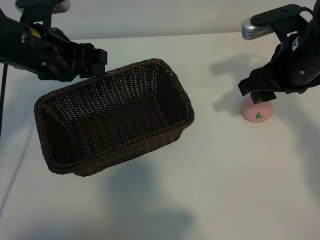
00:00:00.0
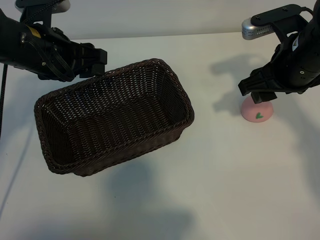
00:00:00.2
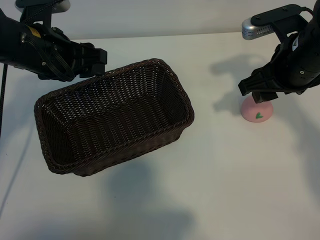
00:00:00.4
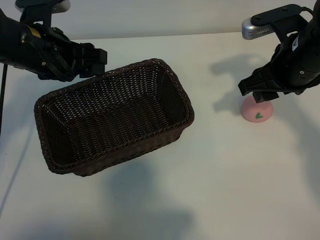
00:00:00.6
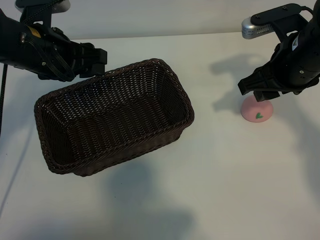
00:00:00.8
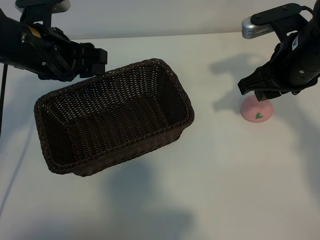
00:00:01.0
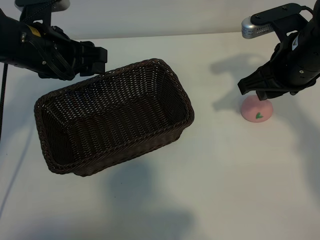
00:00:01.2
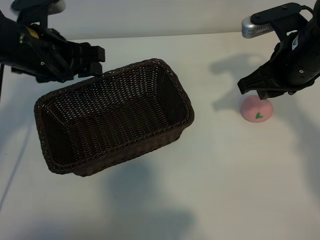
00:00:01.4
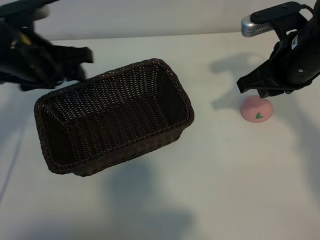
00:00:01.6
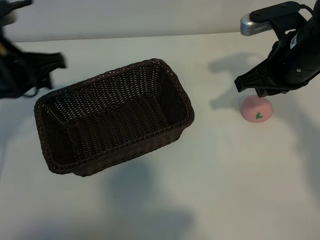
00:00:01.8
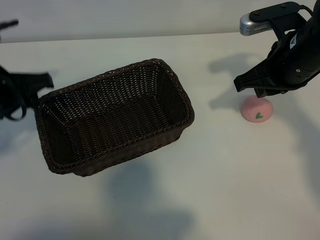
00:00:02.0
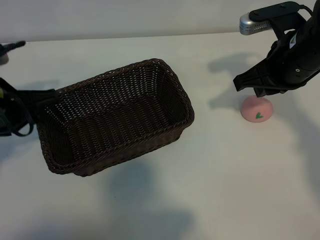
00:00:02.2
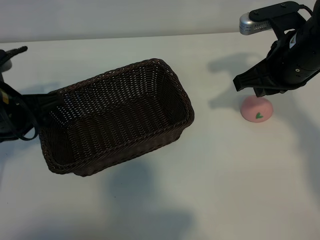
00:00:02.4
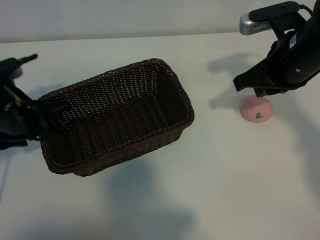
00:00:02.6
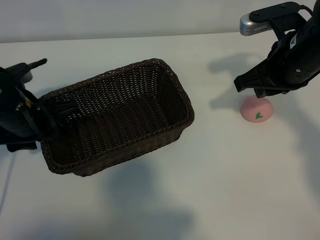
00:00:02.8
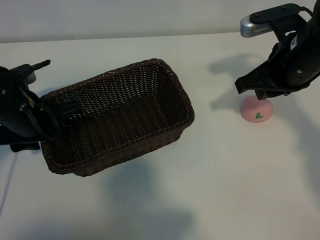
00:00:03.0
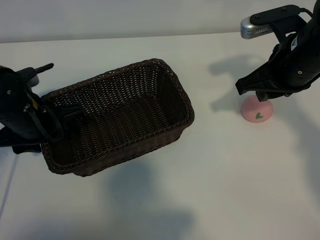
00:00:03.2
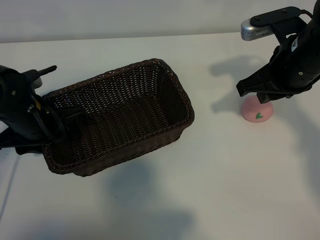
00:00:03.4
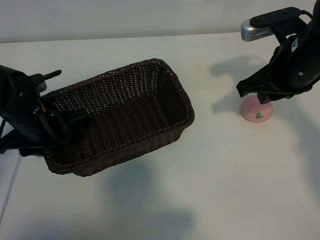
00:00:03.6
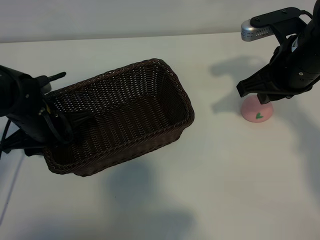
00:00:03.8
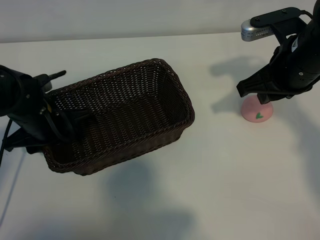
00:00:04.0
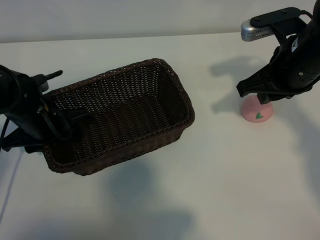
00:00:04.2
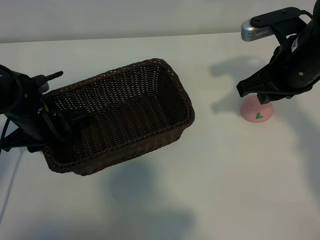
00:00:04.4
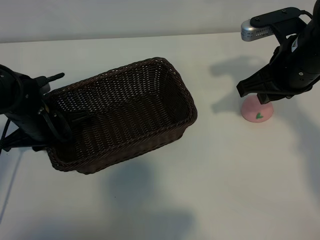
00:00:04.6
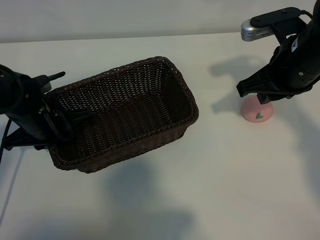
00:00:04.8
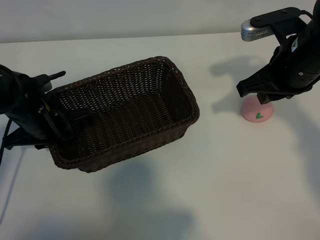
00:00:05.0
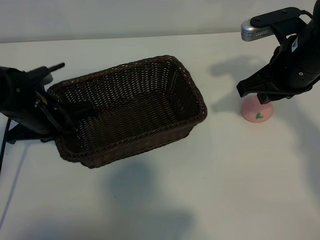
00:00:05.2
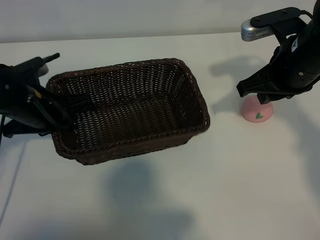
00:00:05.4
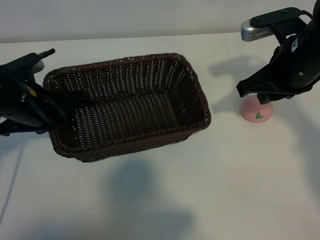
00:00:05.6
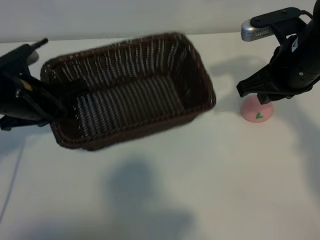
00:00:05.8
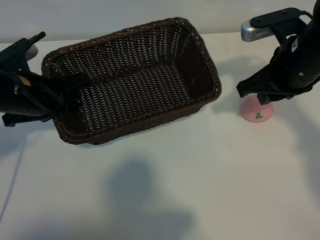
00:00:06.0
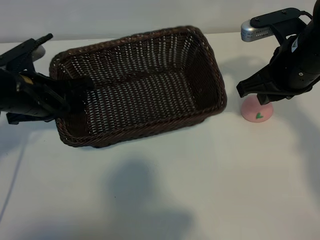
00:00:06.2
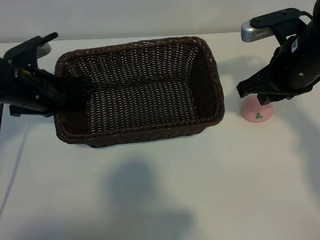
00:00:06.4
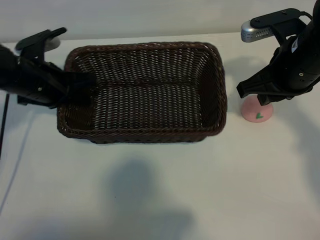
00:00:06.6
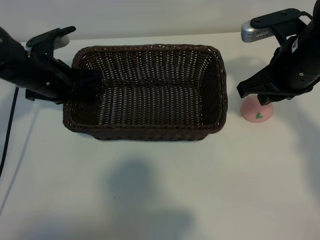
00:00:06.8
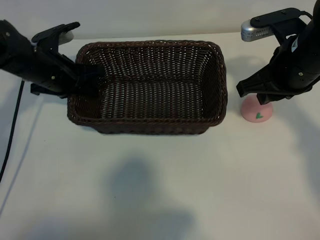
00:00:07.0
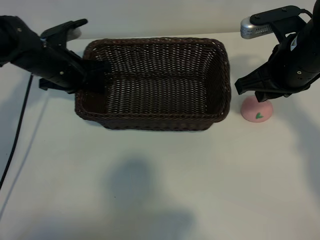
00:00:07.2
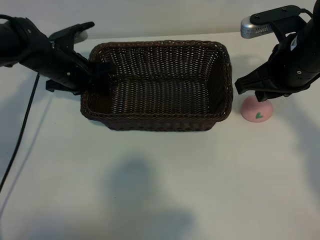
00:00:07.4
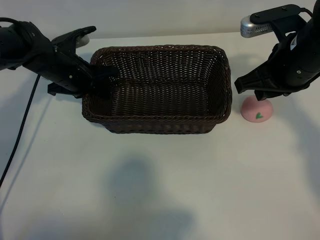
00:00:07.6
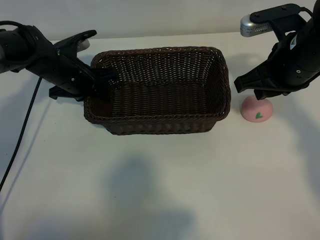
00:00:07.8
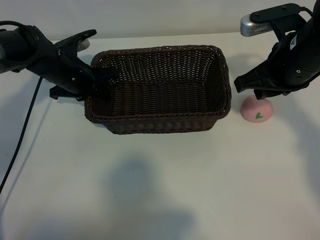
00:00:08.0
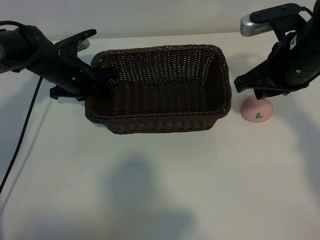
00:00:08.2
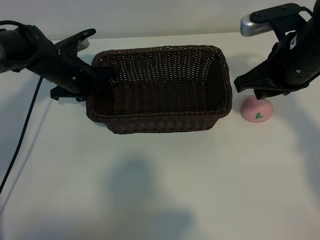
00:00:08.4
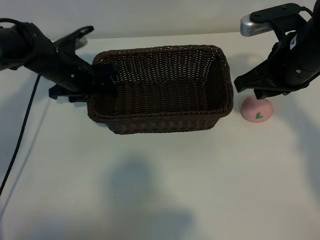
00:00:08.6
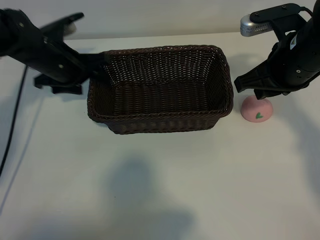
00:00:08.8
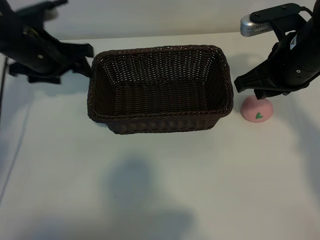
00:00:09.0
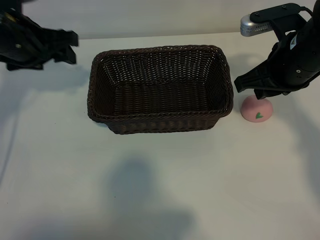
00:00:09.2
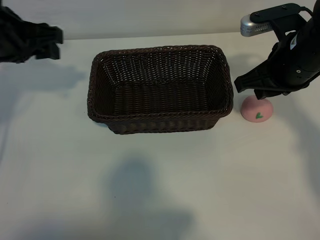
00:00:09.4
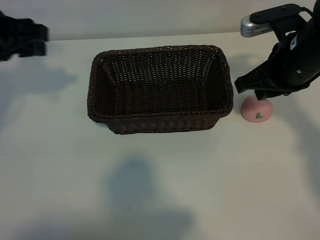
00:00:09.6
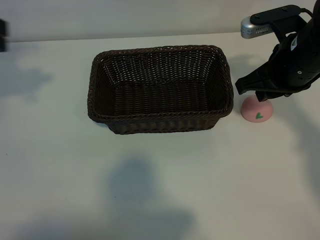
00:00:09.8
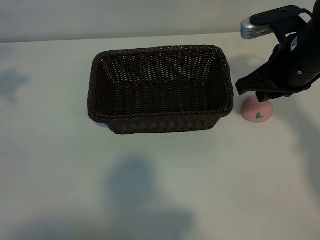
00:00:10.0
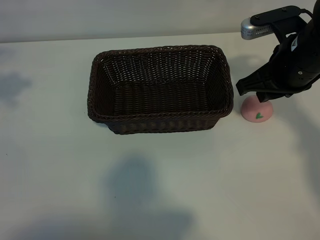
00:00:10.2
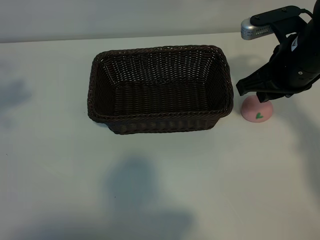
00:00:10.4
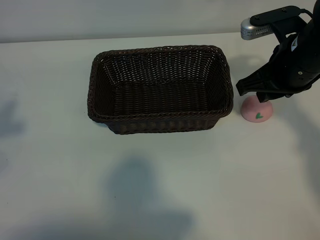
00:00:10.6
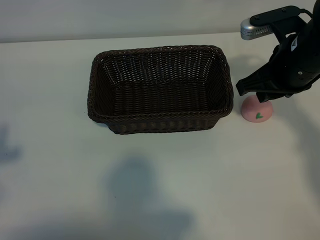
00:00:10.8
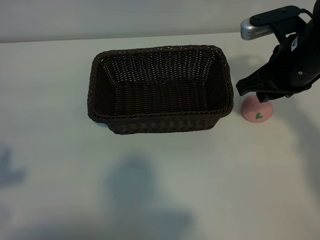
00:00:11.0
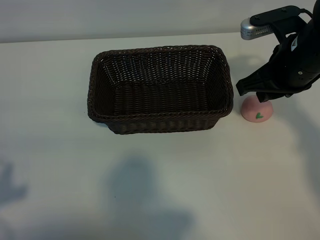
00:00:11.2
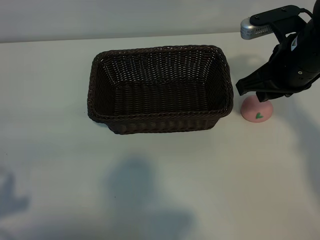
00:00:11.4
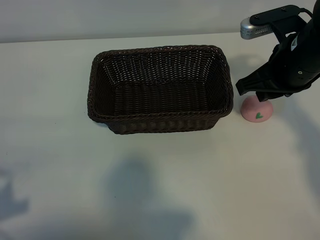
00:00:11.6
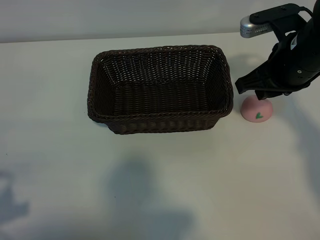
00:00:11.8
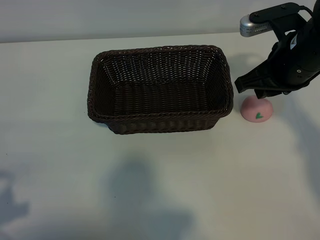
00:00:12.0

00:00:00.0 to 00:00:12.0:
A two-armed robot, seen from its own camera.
Task of the whole recording: pick up the peach and put it into the basket.
Step, 00:00:00.8 to 00:00:05.0: Grasp the basket with left gripper.
Step, 00:00:05.2 to 00:00:08.6: Place the basket in the center of view with left gripper.

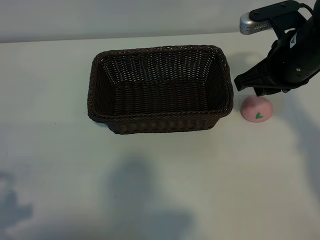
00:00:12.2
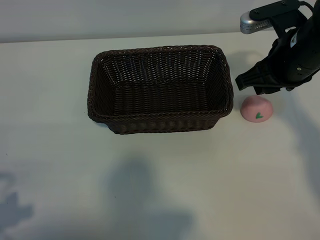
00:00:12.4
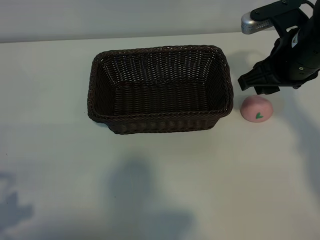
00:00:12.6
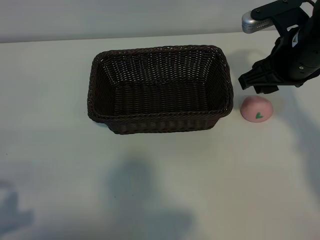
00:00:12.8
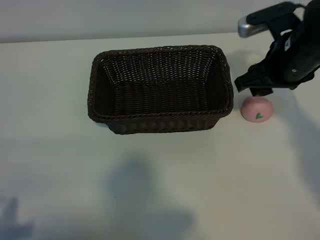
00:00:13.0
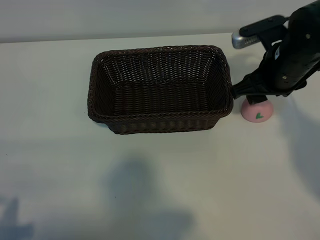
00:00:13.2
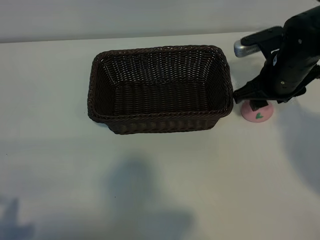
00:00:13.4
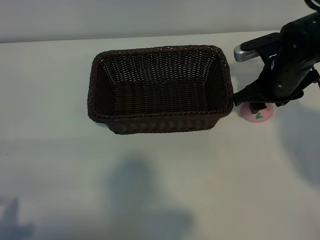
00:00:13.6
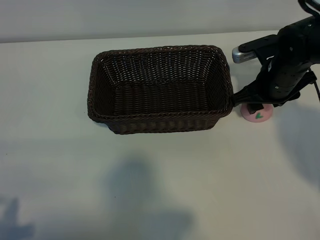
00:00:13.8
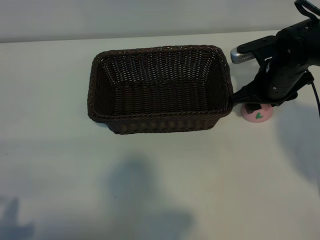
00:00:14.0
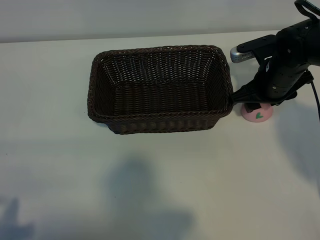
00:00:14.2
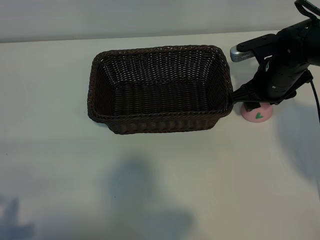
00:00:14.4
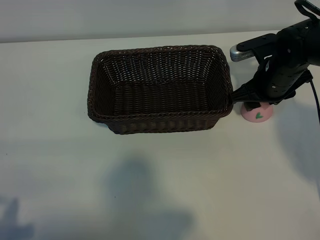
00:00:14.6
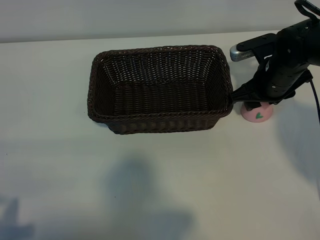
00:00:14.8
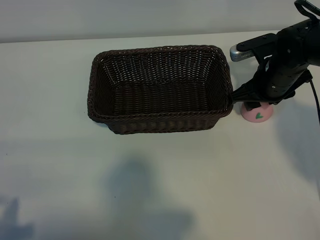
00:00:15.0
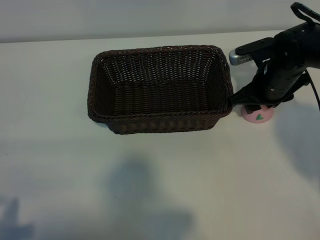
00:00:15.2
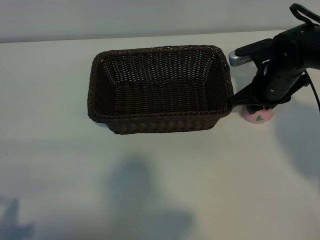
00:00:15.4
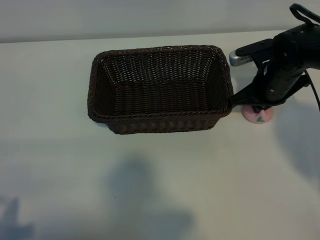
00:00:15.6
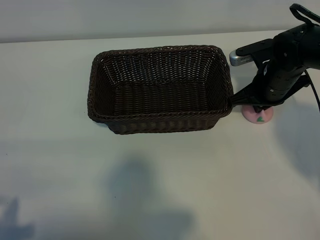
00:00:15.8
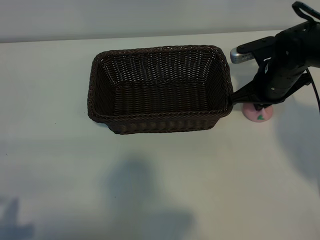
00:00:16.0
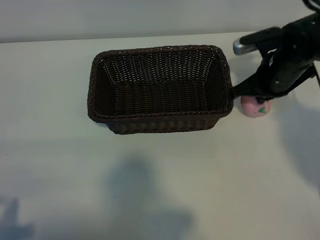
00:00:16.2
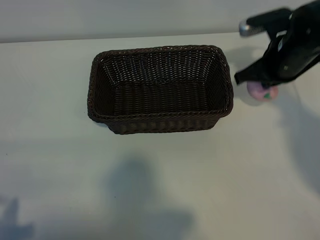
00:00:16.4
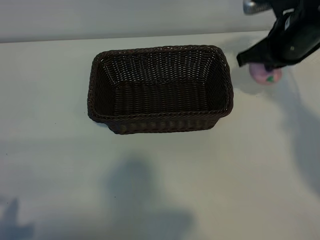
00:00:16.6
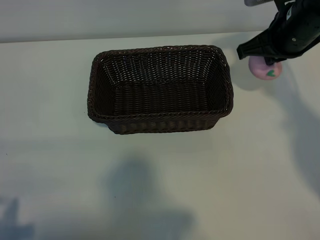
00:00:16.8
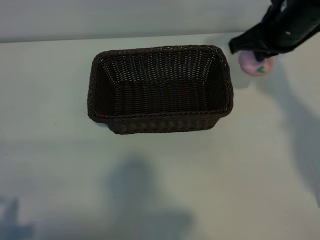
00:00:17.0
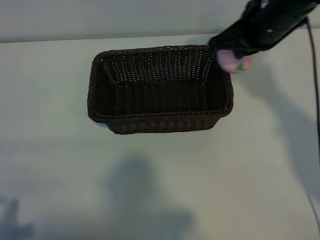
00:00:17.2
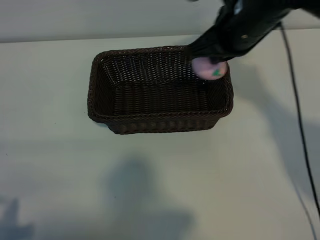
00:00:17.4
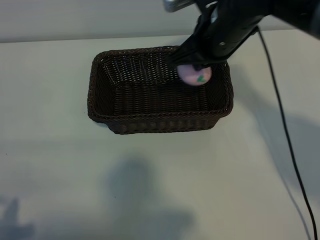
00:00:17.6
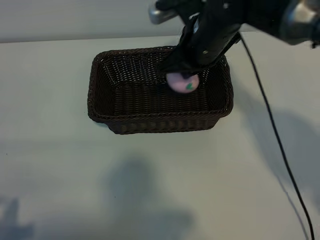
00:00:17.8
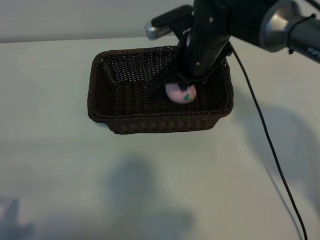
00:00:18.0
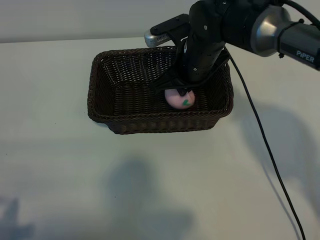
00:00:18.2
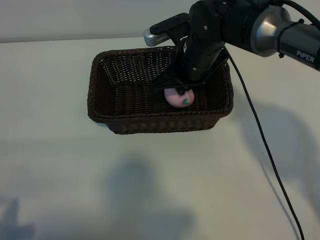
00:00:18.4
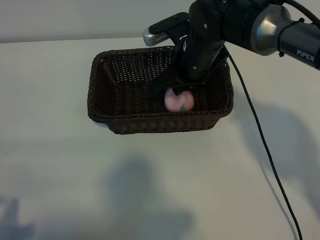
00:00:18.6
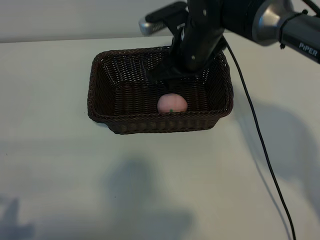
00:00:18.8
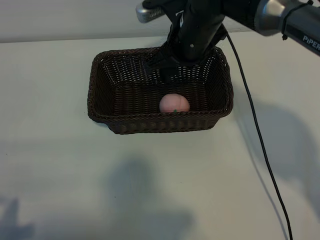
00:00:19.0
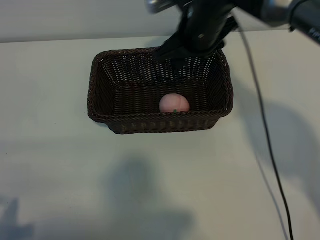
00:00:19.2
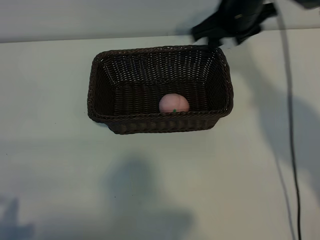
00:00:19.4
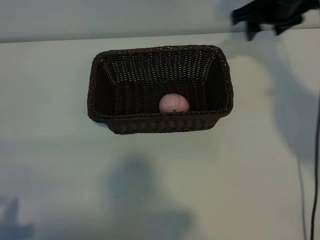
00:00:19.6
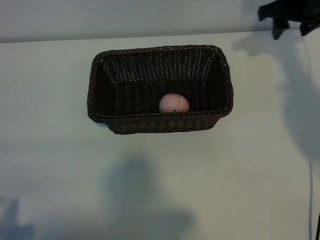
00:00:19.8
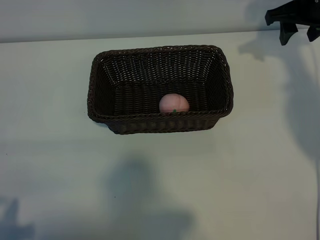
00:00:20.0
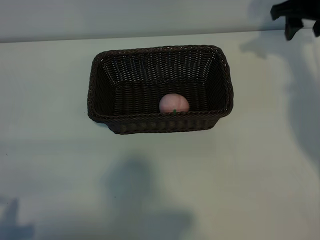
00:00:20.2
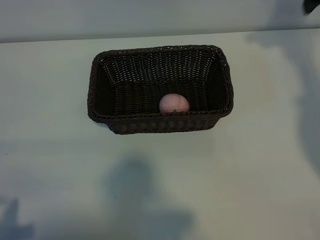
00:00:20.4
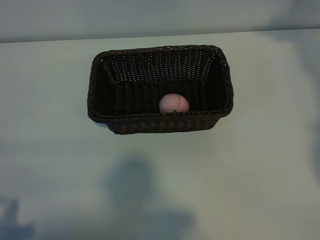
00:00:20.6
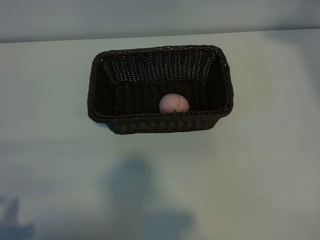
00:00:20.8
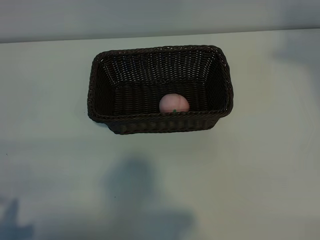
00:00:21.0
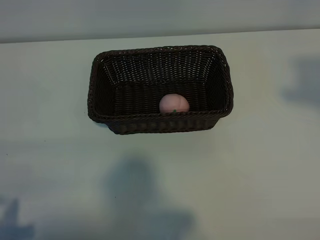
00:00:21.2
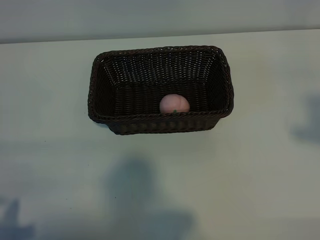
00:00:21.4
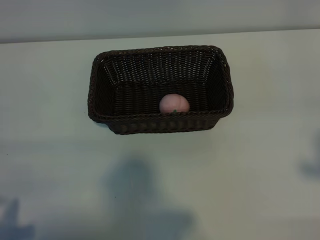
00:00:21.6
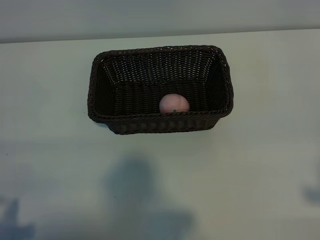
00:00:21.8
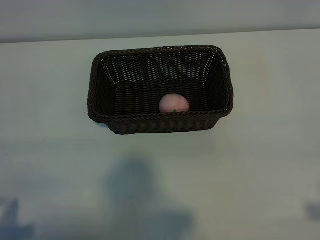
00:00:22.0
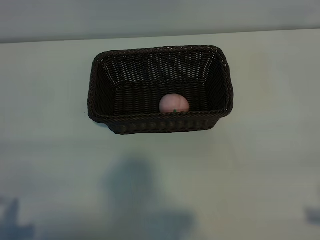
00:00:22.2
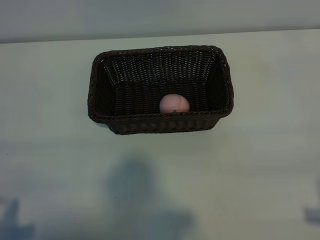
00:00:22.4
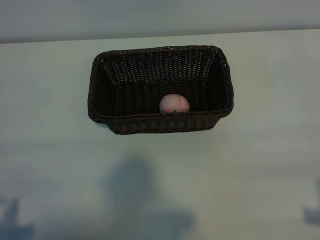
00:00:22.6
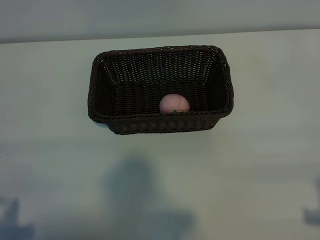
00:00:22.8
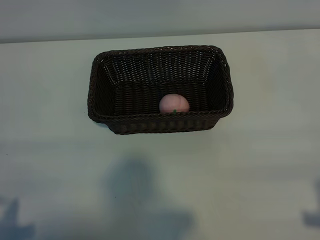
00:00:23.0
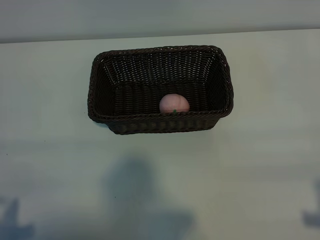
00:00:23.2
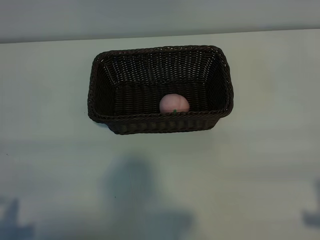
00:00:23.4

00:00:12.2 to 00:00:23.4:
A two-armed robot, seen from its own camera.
Task of the whole recording: pick up the peach and put it into the basket.
Step, 00:00:12.2 to 00:00:15.8: Grasp the peach with right gripper.
Step, 00:00:16.0 to 00:00:18.8: Place the peach in the basket with right gripper.
